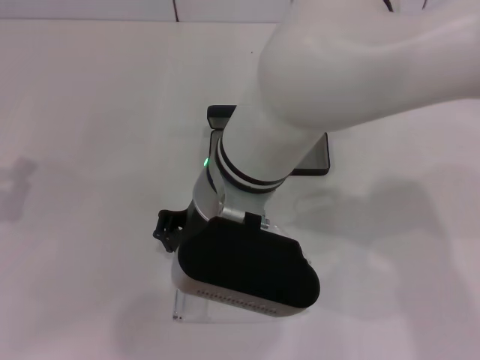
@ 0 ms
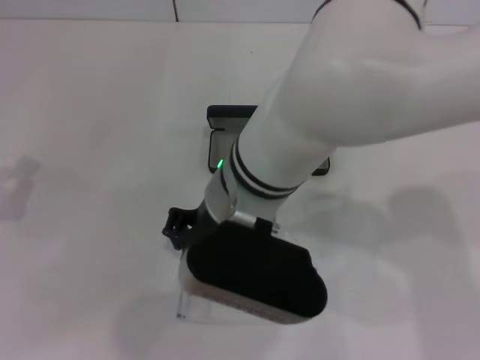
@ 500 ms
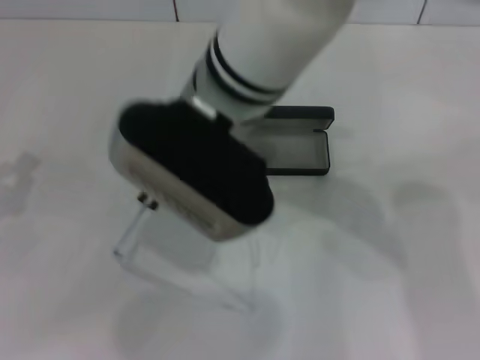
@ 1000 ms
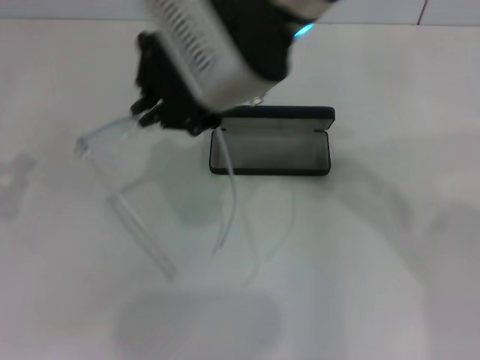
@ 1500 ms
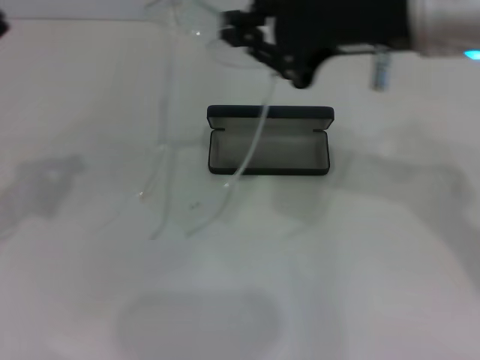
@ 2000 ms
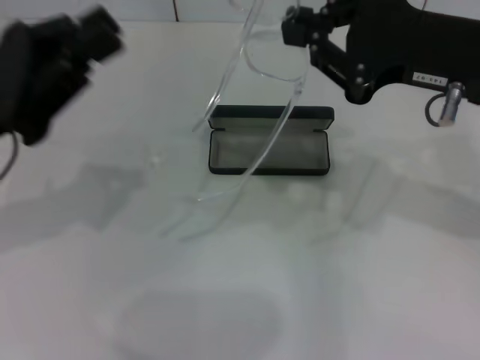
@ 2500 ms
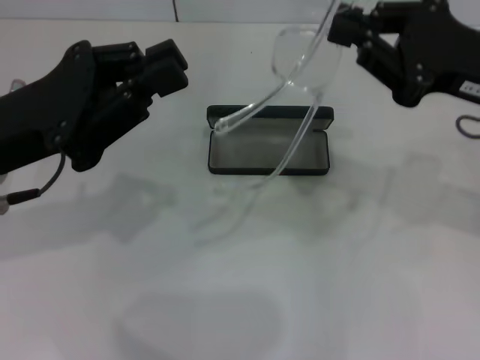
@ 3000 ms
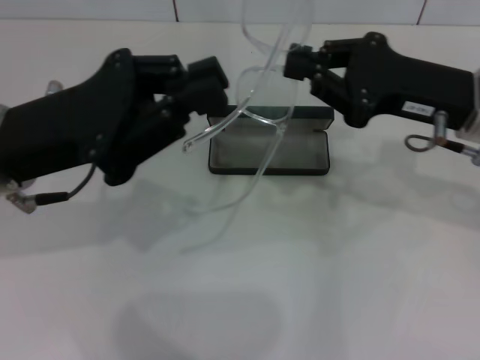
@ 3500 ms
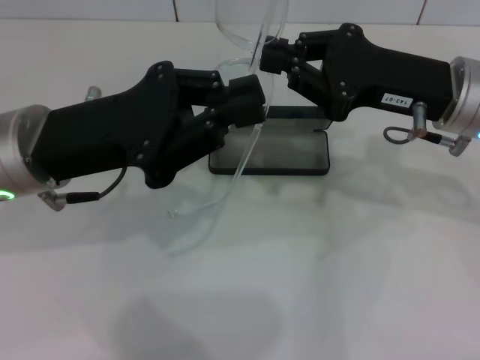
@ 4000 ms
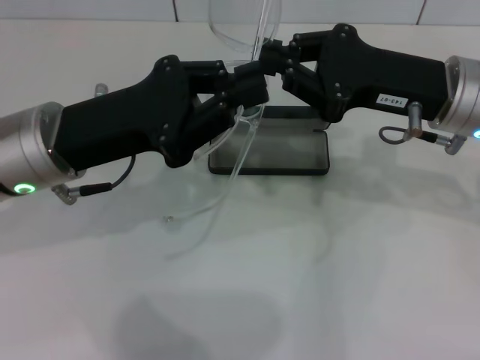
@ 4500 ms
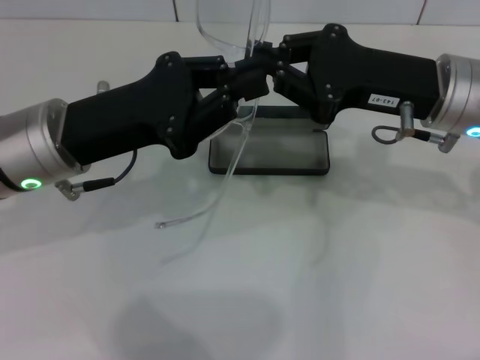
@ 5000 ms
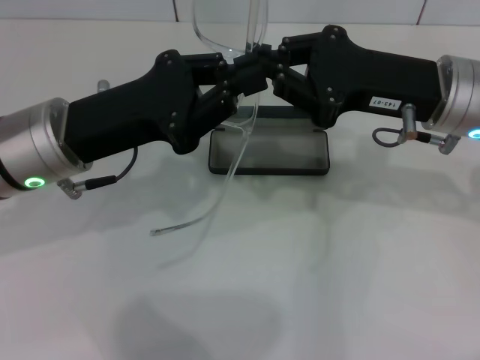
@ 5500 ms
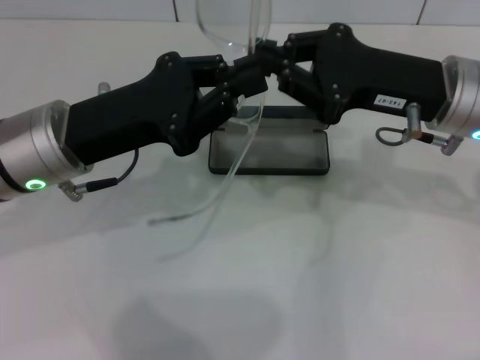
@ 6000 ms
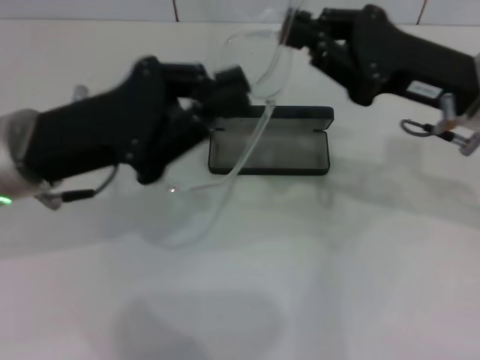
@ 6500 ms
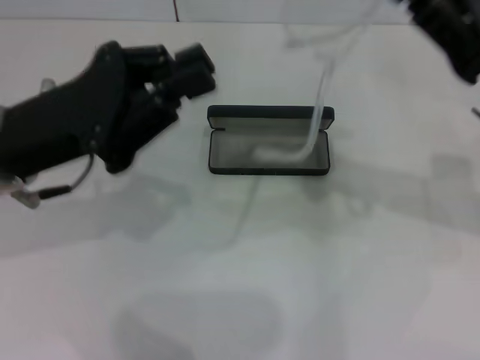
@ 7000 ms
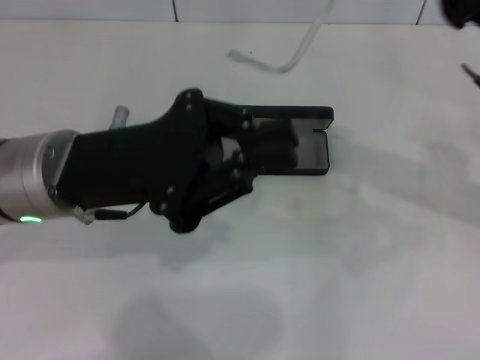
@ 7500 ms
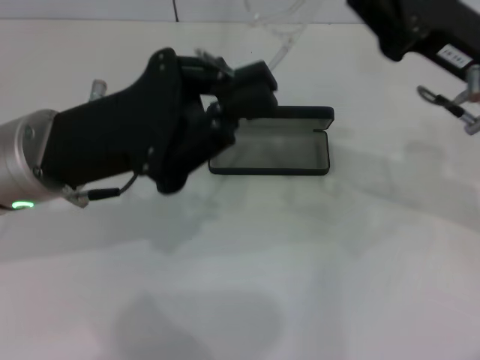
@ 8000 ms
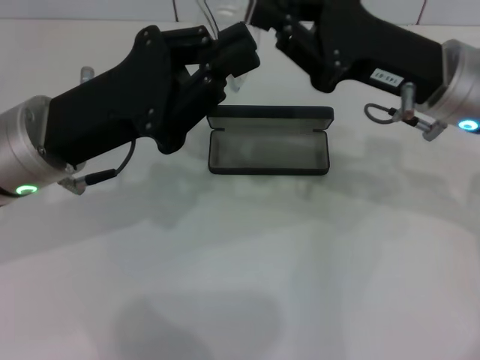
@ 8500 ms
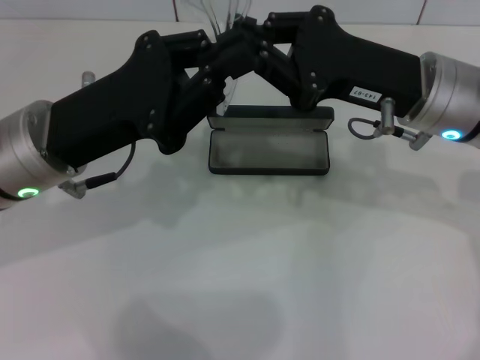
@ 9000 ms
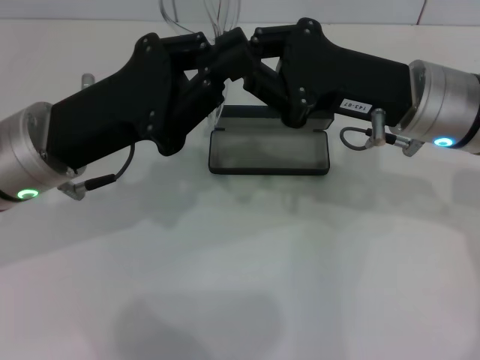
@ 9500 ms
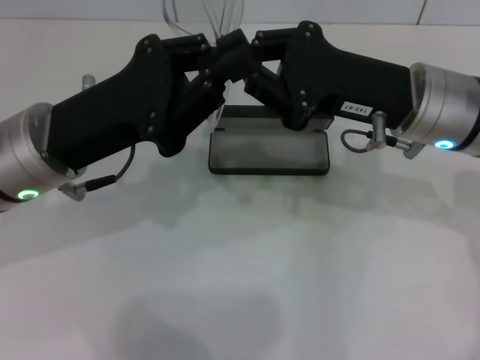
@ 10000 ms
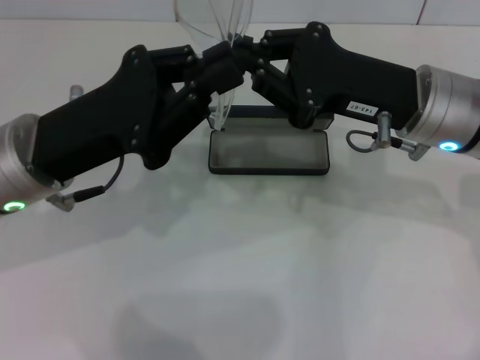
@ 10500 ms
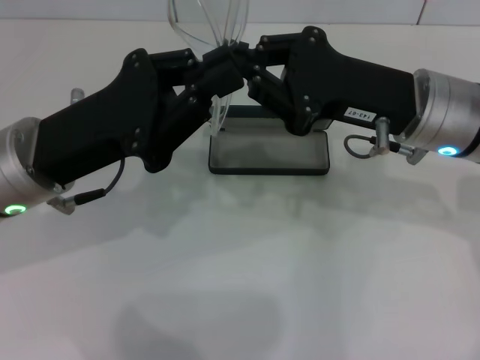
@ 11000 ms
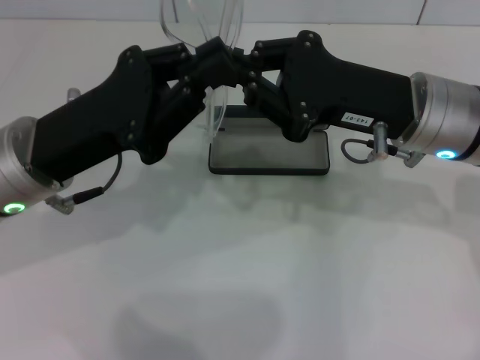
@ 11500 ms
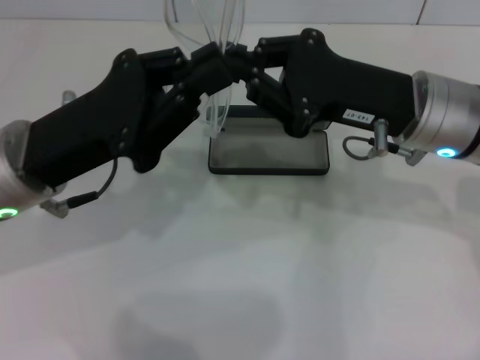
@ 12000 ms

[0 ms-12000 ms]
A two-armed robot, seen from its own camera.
Step, 1000 ms to 10000 ms: Lift the glasses with your right hand.
0 ms to 2000 ms: The right gripper is displaced to the right and upward by about 20 cm, while the left gripper heads upward, covering approximately 5 cm.
2000 ms to 4000 ms: The right gripper heads downward and to the right, covering about 10 cm; the left gripper shifts roughly 10 cm to the right.
4000 ms to 6000 ms: There are only small adjustments of the grippers.
8000 ms to 10000 ms: The right gripper heads to the left, covering approximately 5 cm.
10000 ms to 12000 ms: The grippers make only small movements.

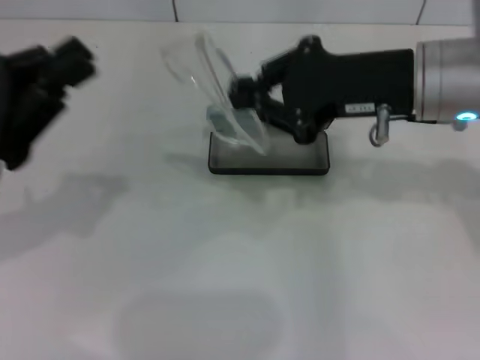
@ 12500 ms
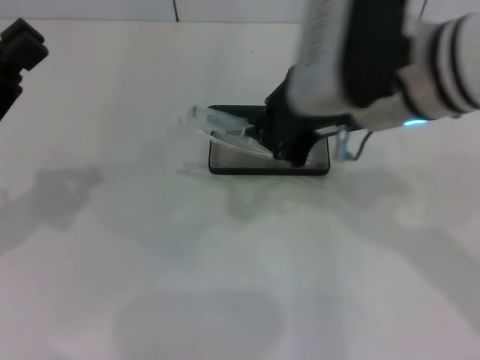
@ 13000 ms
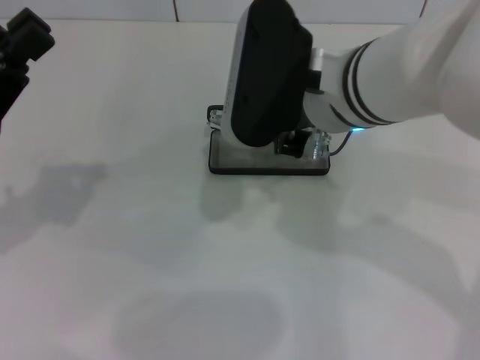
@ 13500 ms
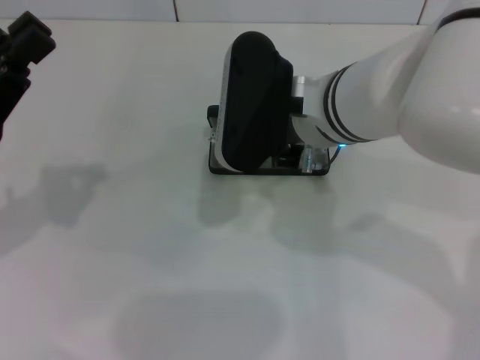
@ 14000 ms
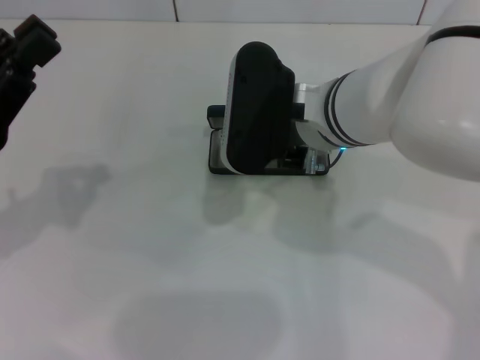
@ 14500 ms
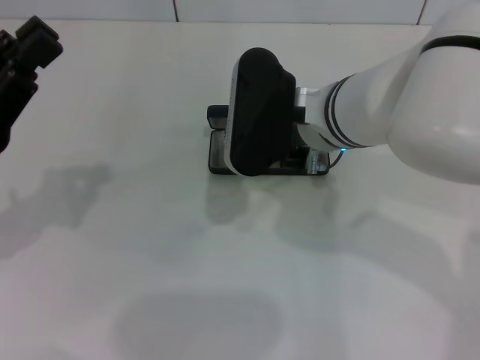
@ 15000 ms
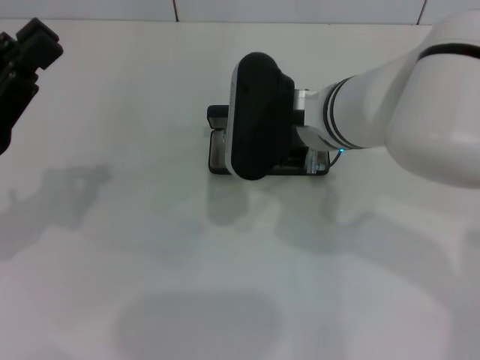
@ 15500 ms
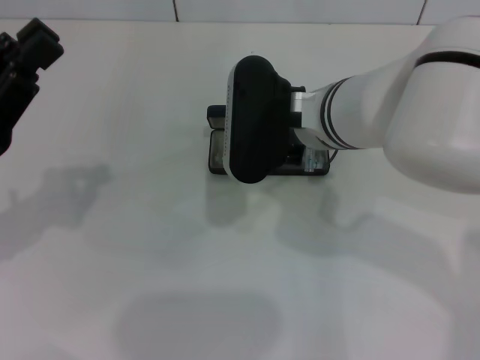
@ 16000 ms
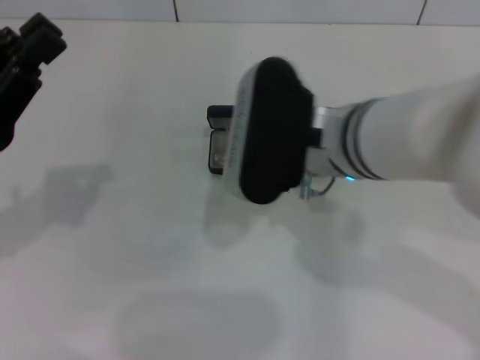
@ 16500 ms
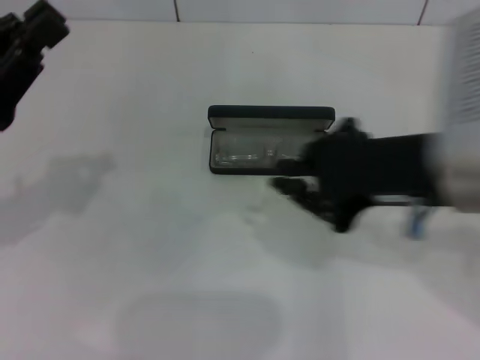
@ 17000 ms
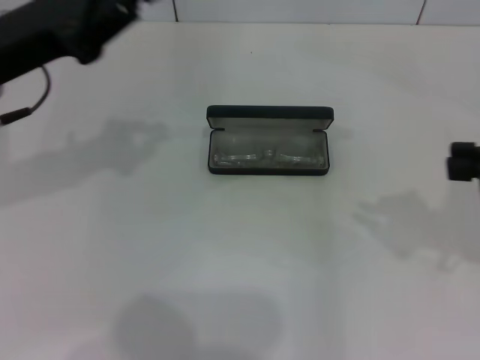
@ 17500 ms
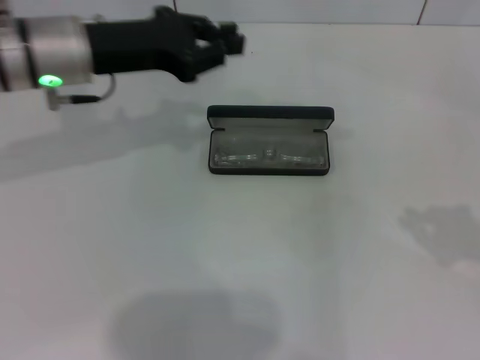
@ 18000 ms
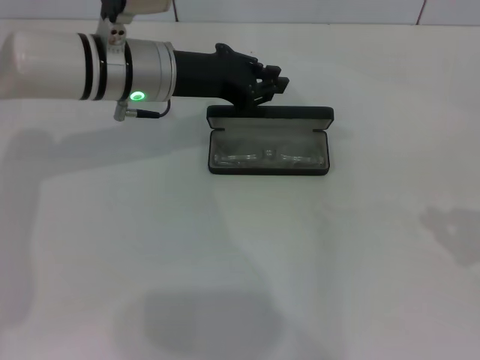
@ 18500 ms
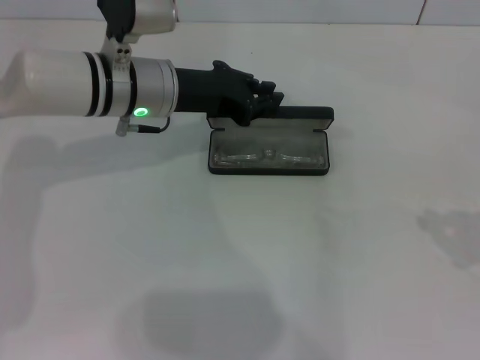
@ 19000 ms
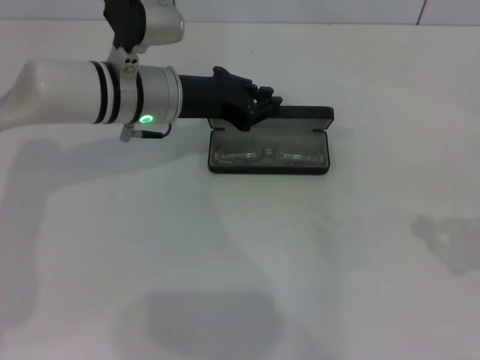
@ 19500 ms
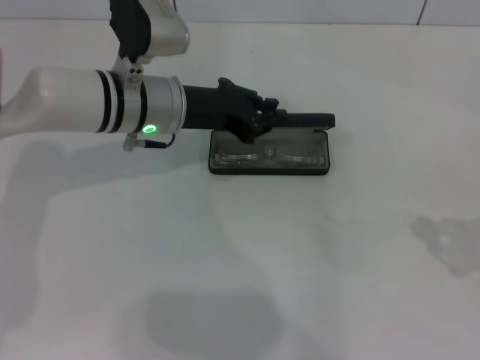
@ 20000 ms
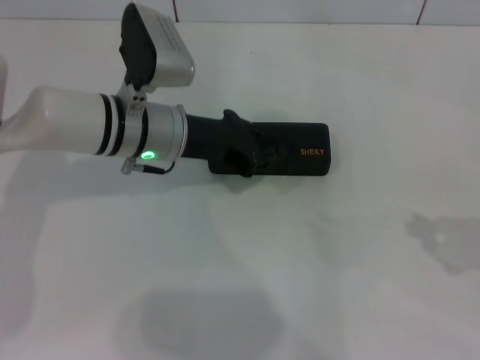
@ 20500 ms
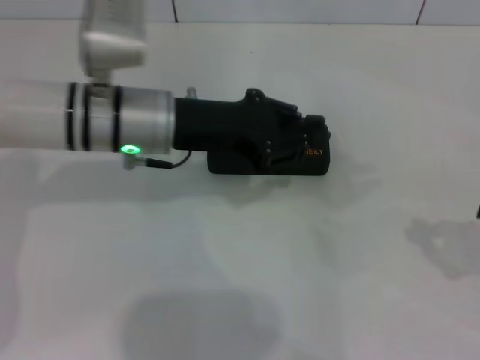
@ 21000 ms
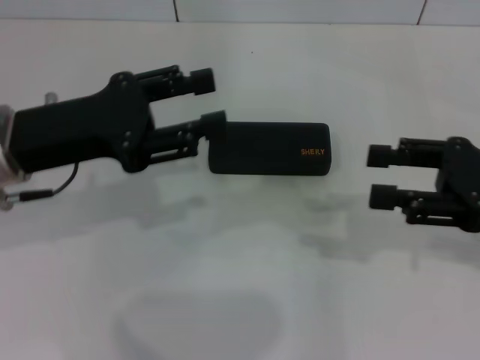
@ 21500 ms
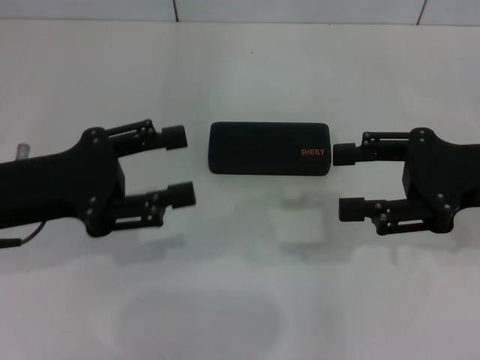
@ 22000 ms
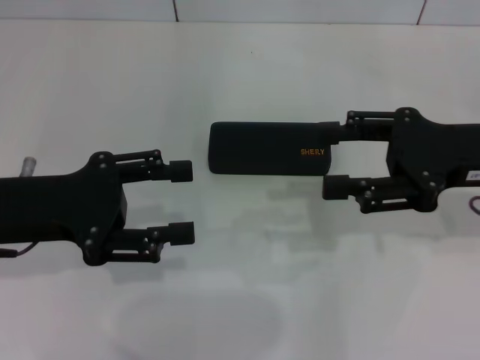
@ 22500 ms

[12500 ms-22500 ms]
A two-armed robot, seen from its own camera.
Step, 12500 ms to 16000 ms: Put the glasses into the case with your right hand.
Step, 16500 ms to 20000 ms: Close the glasses case with your left hand.
12500 ms to 14500 ms: The right gripper goes about 10 cm to the left.
14500 ms to 16500 ms: The grippers make only small movements.
16500 ms to 18500 ms: The right gripper heads to the right, covering about 30 cm. The left gripper shifts about 20 cm forward and to the right.
18500 ms to 20500 ms: The left gripper shifts by some 5 cm.
20500 ms to 22500 ms: The right gripper goes some 15 cm to the left and forward, and opens its fingers. The left gripper shifts about 20 cm to the left and backward, and opens up.
